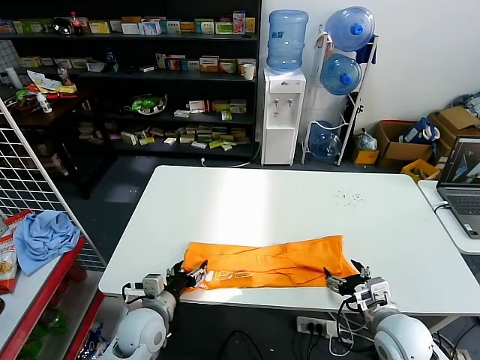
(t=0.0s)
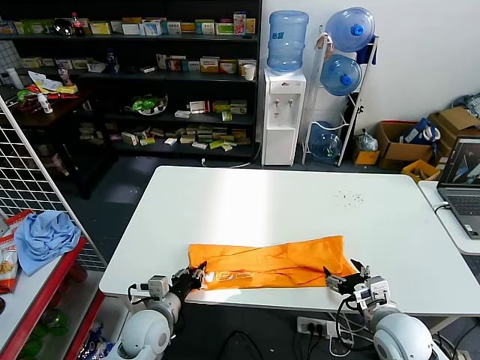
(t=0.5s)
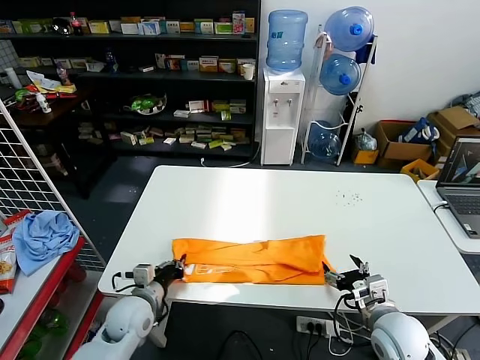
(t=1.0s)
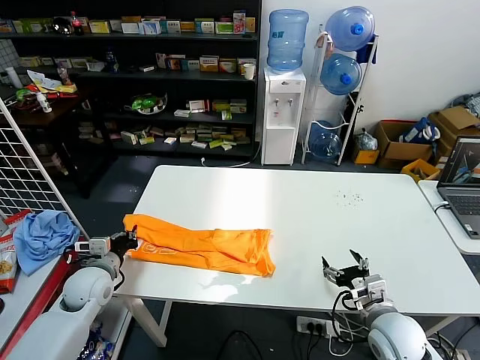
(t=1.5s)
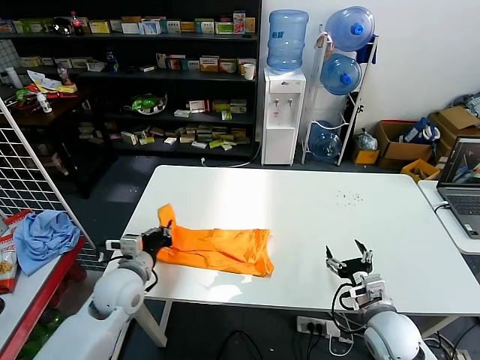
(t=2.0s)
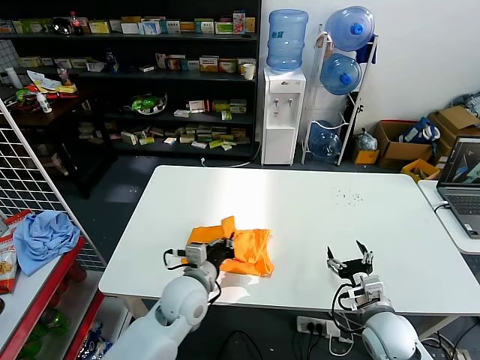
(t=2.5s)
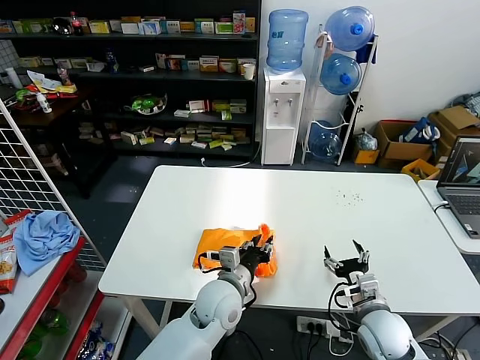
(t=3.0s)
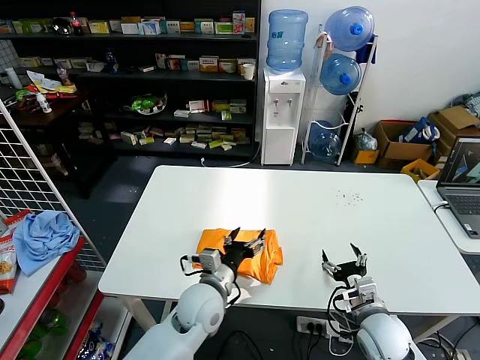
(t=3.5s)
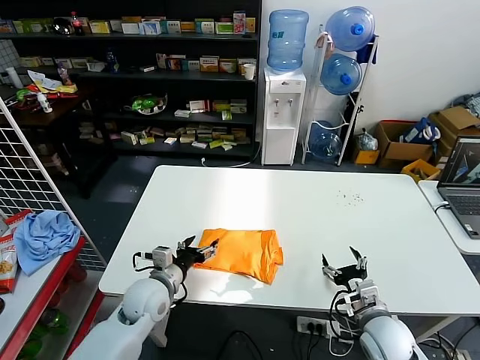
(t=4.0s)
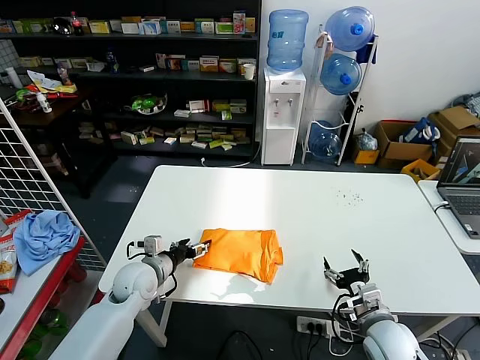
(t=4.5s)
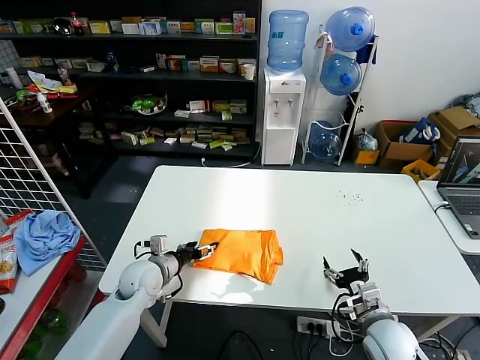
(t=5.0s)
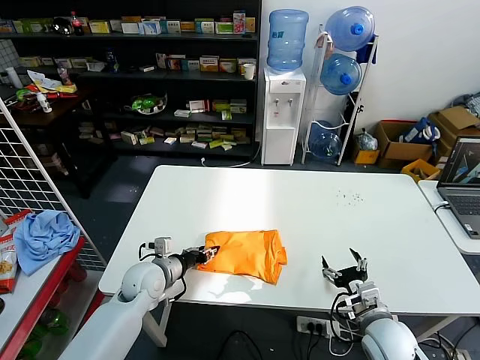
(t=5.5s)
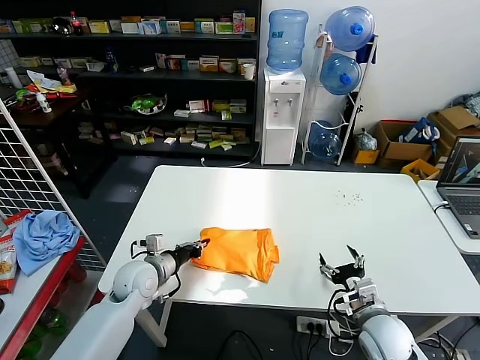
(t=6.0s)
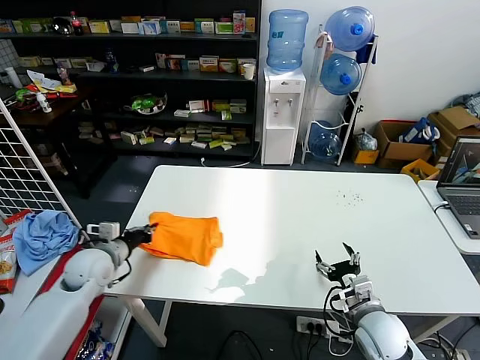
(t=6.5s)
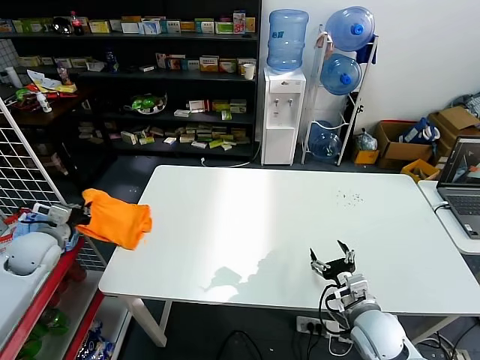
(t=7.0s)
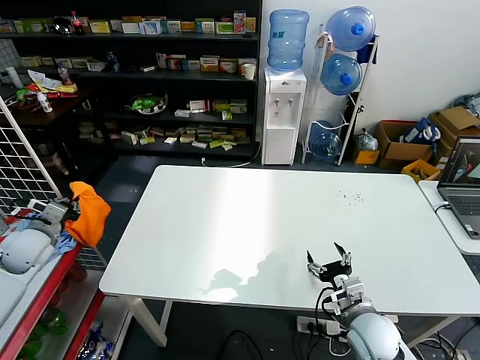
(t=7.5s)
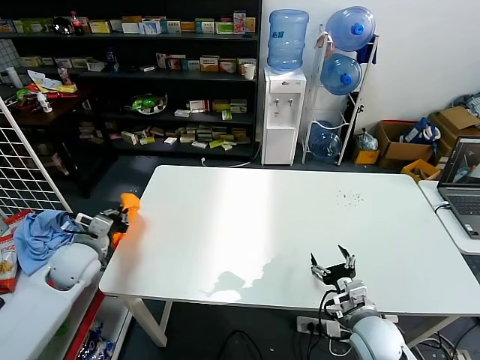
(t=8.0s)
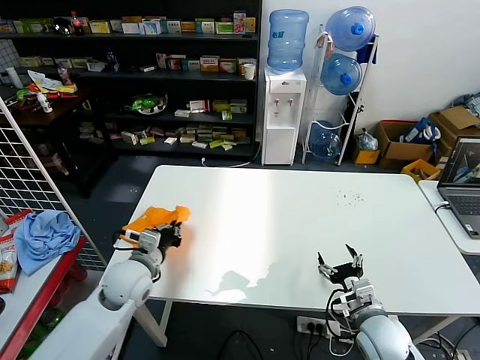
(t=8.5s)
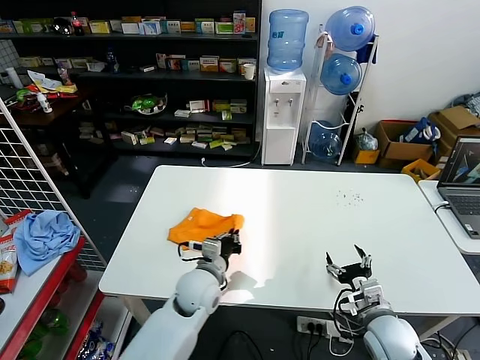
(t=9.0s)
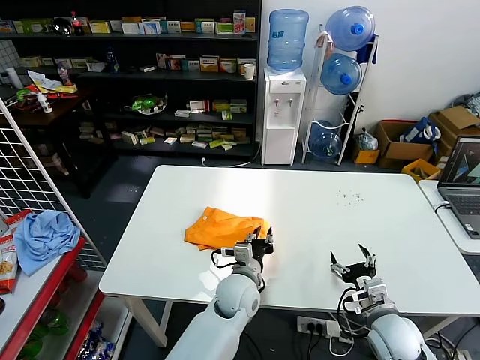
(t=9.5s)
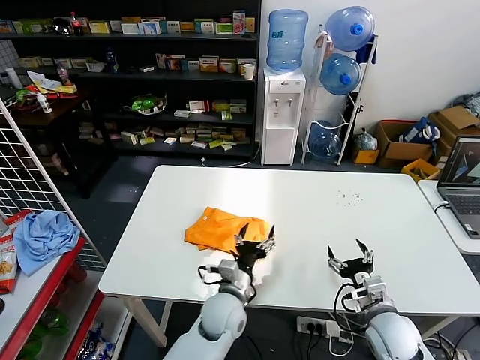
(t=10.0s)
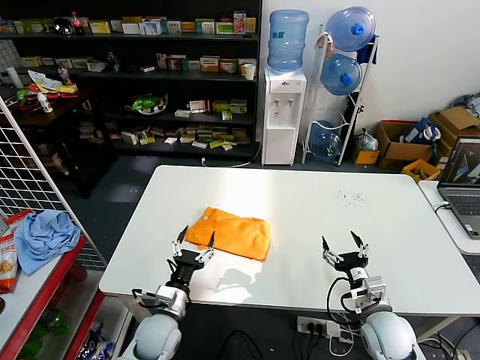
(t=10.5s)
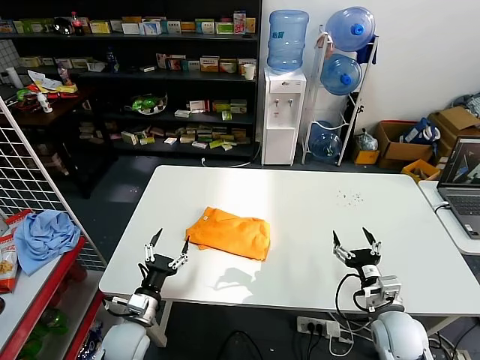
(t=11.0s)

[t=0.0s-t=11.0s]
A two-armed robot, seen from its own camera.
Task of the whole recording: fold and organize the clothes.
Step, t=1.0s to t=3.0s: use the left gripper to drag the left edge of the fabric to the left and folds it over the right edge.
Step, t=3.5s to t=9.5s: Flip the folded clothes over with left gripper.
t=0.0s to t=2.0s: The left gripper goes about 10 cm upward, forward and to the left, and closes.
t=2.0s to t=3.5s: The left gripper goes about 20 cm to the right, and opens up.
t=3.5s to t=5.5s: The left gripper is displaced to the left and forward by roughly 15 cm, and closes up.
t=5.5s to t=7.5s: The left gripper heads to the left and upward, covering roughly 30 cm, and closes its fingers.
t=7.5s to t=9.0s: The left gripper goes some 35 cm to the right.
t=9.0s to t=11.0s: The left gripper moves to the left, downward and backward, approximately 20 cm, and opens up.
